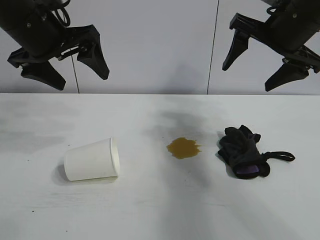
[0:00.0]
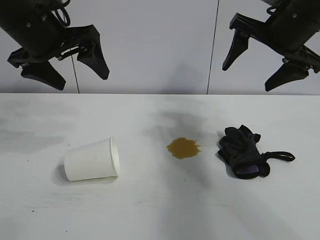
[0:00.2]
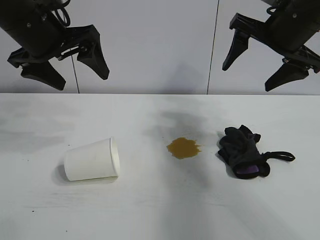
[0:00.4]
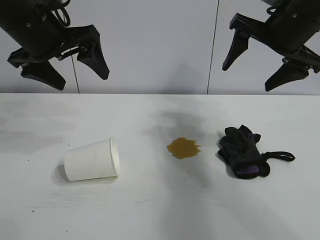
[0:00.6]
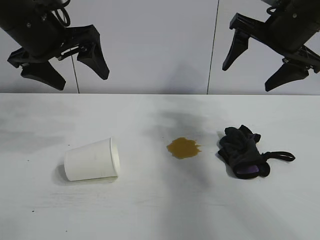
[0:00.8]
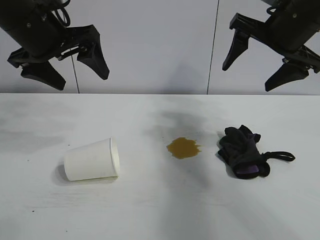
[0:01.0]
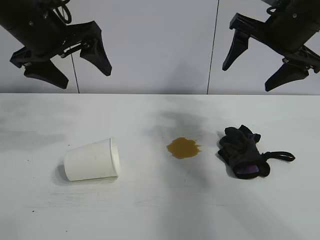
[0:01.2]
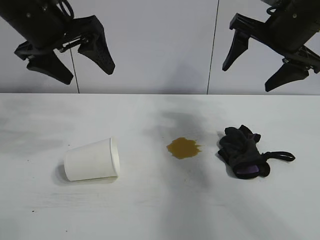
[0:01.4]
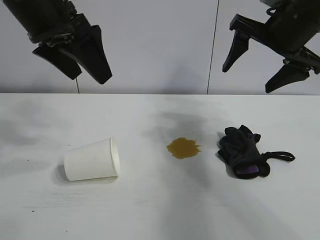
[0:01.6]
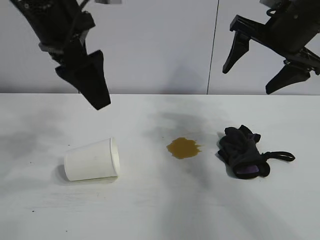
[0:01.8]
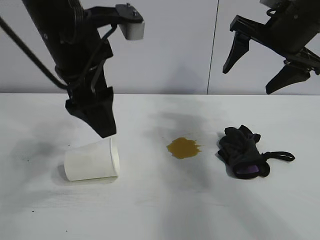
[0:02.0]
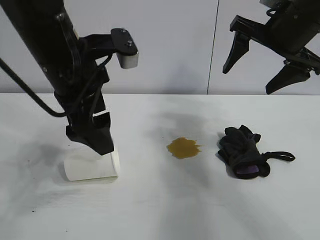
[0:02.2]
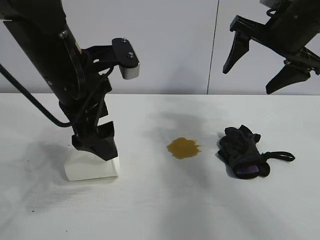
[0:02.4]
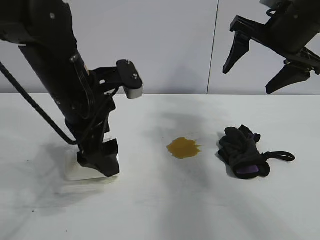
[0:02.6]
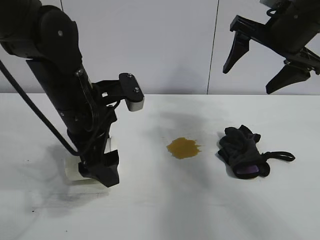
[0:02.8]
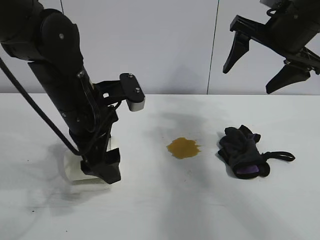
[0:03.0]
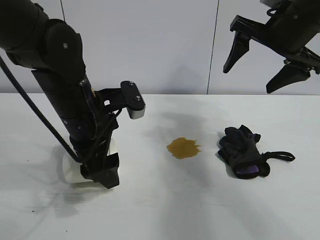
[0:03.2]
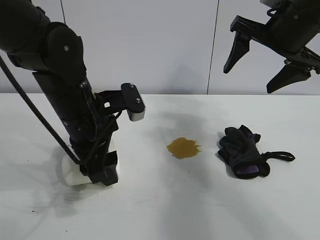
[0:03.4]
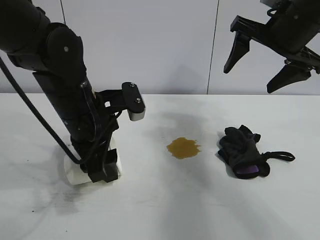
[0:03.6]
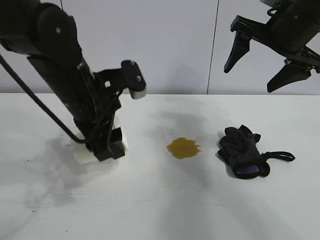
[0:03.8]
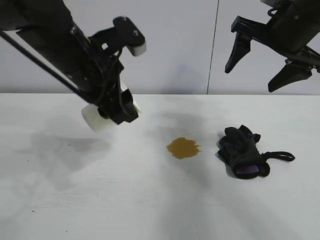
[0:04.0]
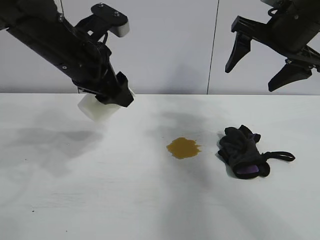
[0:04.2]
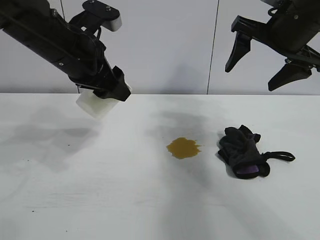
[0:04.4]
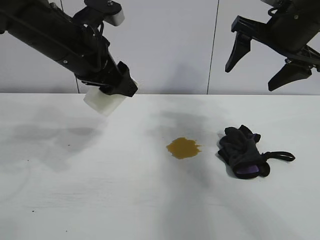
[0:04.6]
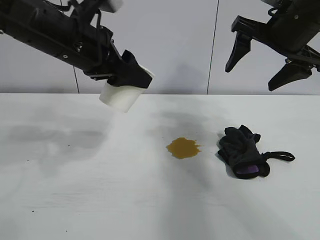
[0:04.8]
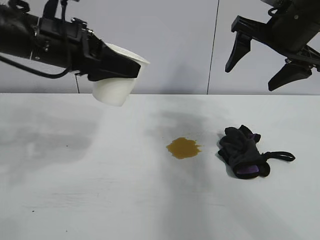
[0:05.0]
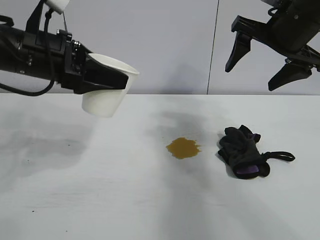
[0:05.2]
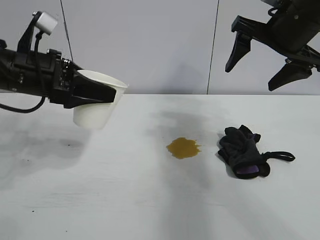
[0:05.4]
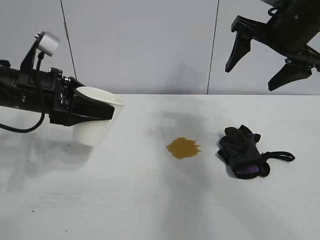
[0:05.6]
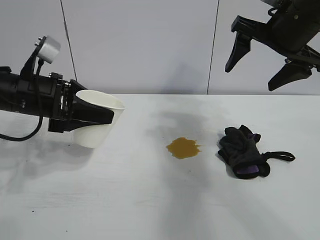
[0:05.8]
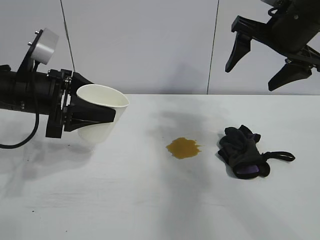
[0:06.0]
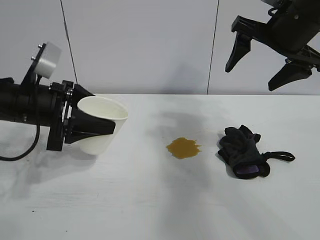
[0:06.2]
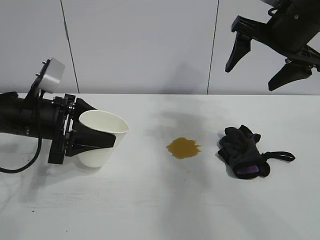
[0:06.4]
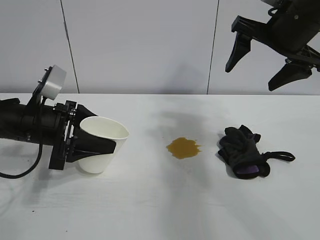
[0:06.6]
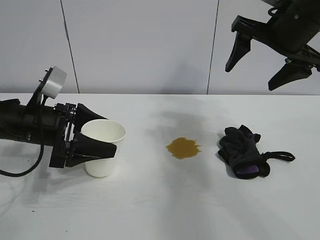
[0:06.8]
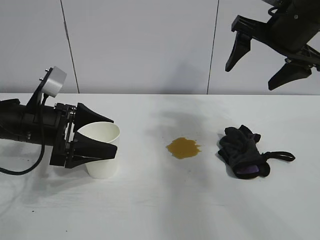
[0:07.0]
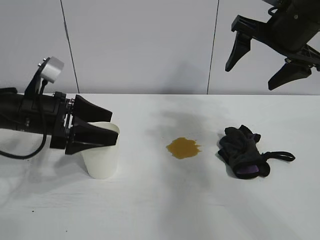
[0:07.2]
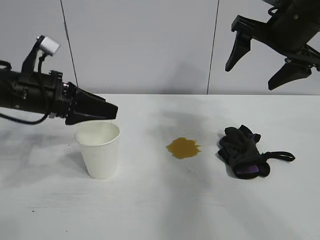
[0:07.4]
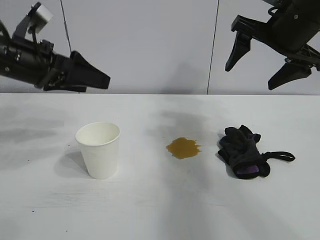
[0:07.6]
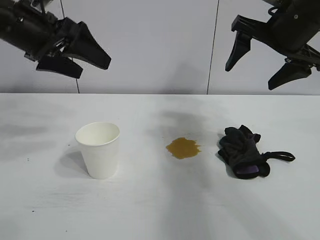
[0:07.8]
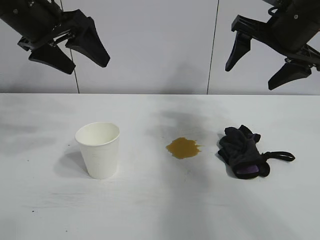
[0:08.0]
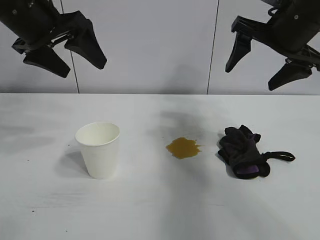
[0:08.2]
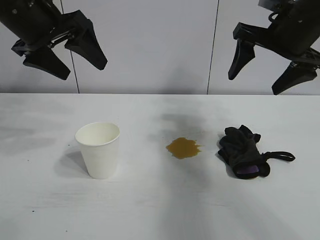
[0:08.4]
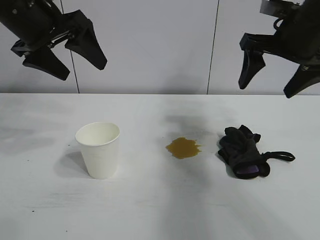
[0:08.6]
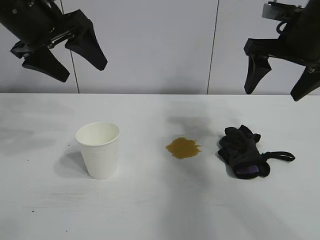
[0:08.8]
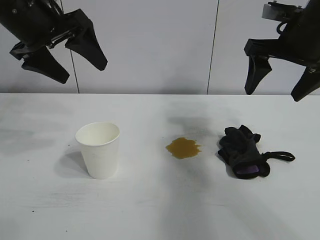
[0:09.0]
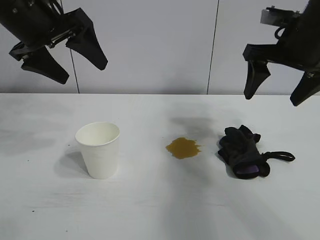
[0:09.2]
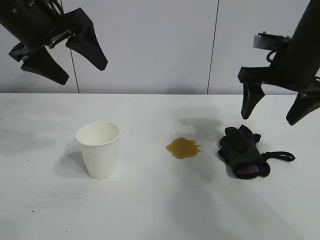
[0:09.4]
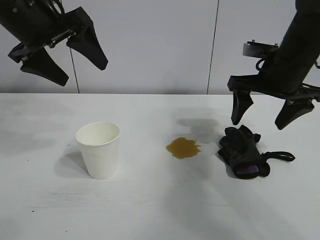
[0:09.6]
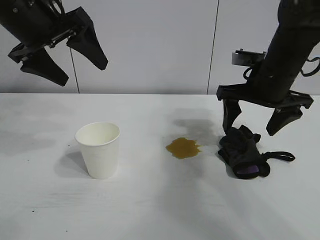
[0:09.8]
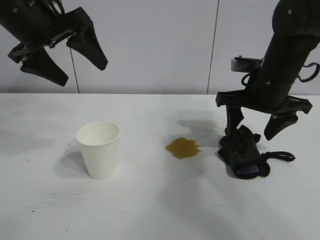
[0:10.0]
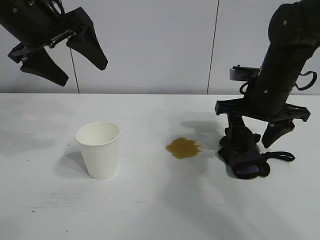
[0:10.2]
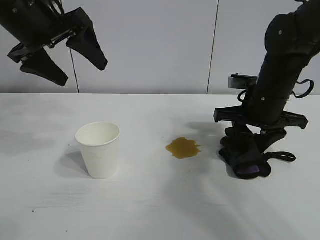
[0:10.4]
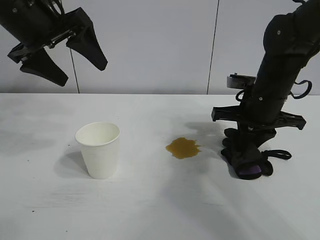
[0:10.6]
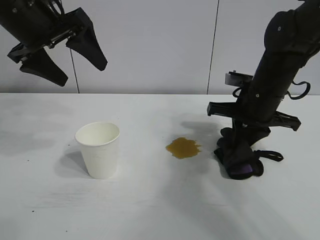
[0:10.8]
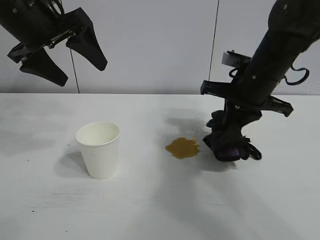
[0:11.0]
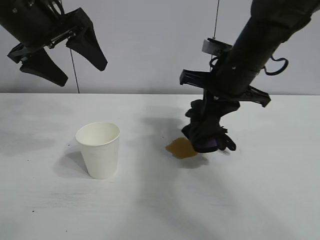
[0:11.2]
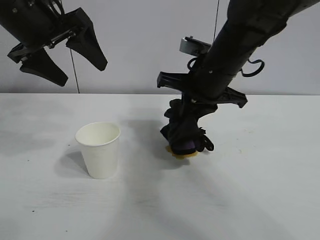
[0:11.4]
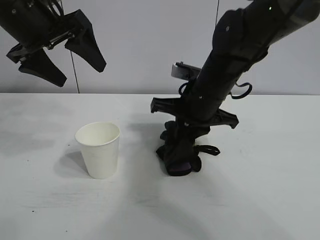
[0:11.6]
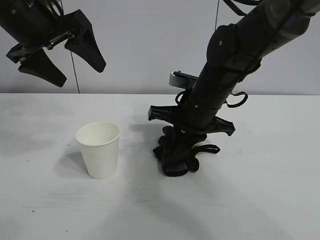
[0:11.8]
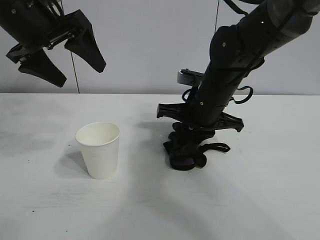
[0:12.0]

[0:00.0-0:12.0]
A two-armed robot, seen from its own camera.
Task of the whole recording: the left gripper pick up the fallen cup and place it upright, the right gripper grasp the black rag and wipe the stain on the table, the right gripper put the black rag back in its original position.
Step, 0:01.2 to 0:03.2: Grasp the paper cup with left gripper.
Step, 0:03.4 to 0:06.8: Stand the paper cup upright with left gripper.
Step, 0:07.0 to 0:10.6: Grasp the rag with right gripper.

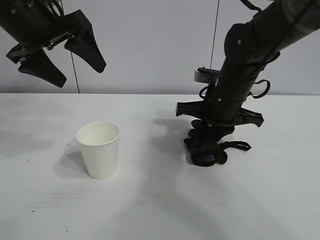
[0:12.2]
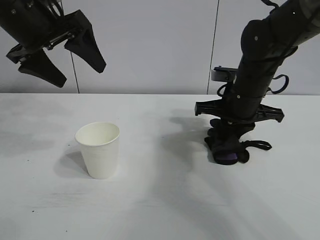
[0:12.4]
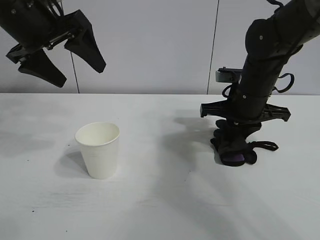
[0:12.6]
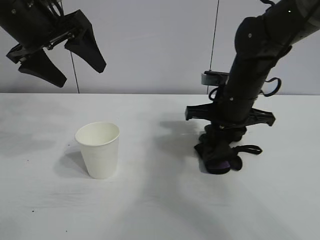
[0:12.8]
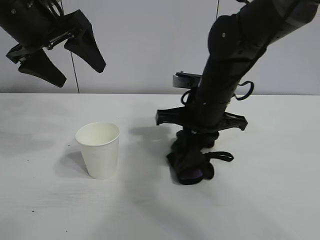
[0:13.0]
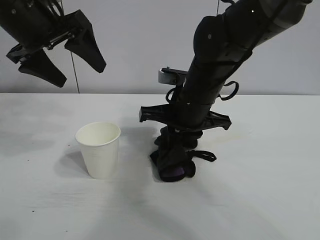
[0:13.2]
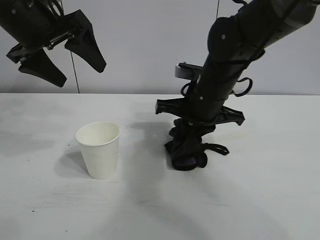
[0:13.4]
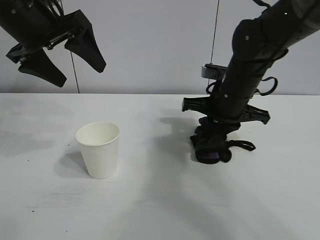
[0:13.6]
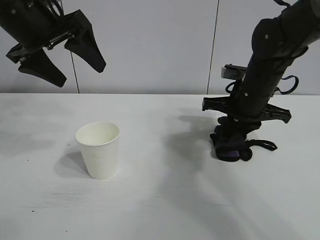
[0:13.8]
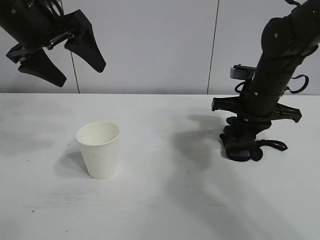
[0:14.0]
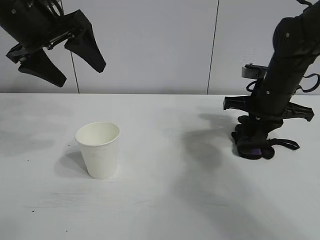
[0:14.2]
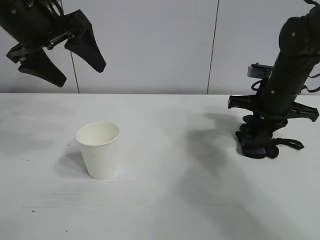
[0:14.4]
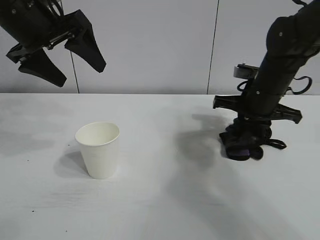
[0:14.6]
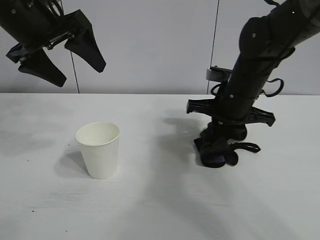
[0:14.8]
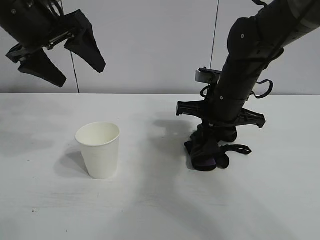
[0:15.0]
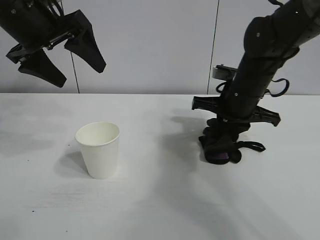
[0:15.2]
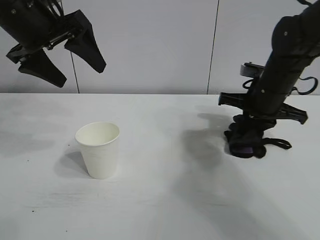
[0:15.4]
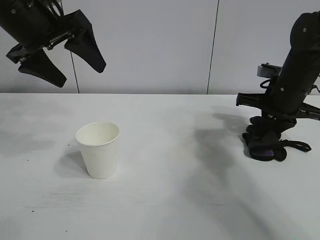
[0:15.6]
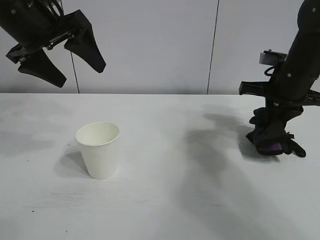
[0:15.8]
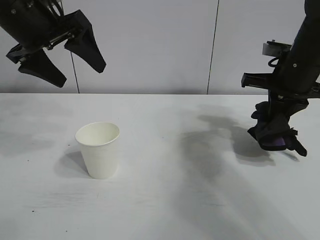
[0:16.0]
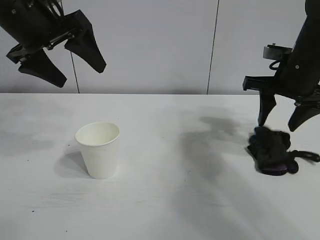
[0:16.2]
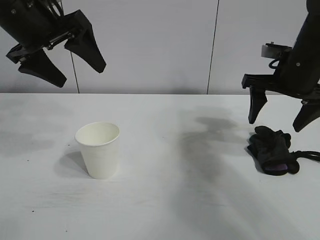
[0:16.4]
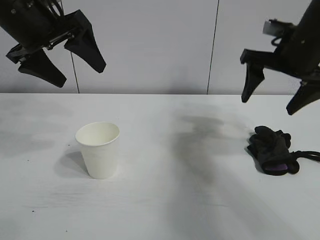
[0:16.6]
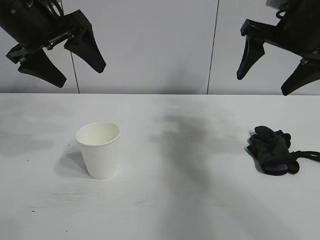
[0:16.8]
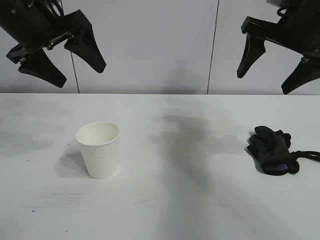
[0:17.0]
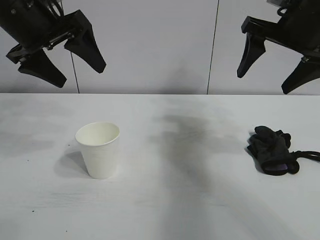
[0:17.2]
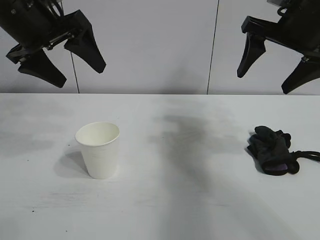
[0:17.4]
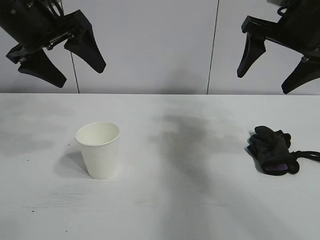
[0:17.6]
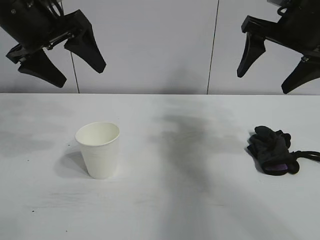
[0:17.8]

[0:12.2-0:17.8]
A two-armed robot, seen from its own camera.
Task of the whole recording: the left gripper pick up the fallen cup and place it upright, the right gripper grasp the black rag and wipe the stain on the table, the right gripper put the black rag back in its original position.
Step, 0:12.2 to 0:15.6: Wipe the stains off the table with the rag with right gripper.
Step, 0:15.8 to 0:16.0: Place the rag on the table with right gripper.
